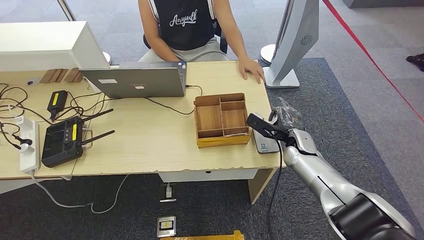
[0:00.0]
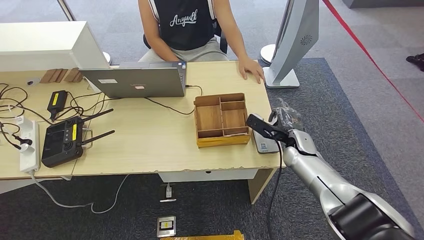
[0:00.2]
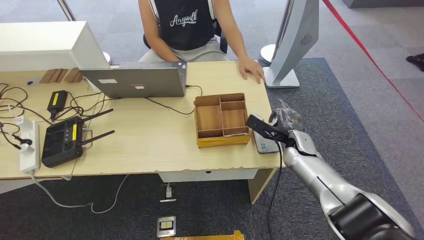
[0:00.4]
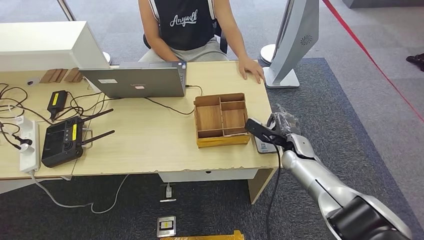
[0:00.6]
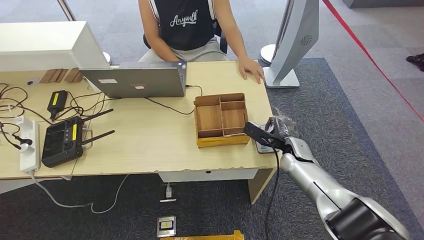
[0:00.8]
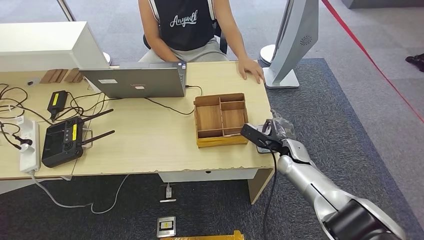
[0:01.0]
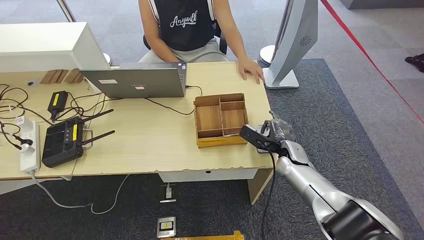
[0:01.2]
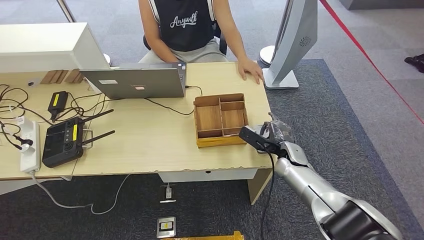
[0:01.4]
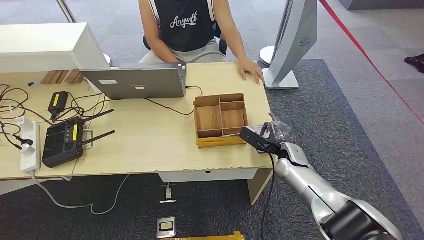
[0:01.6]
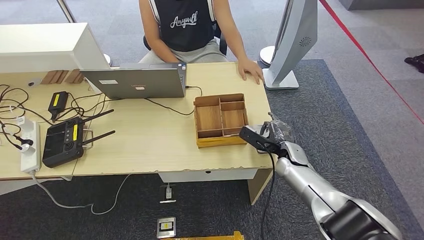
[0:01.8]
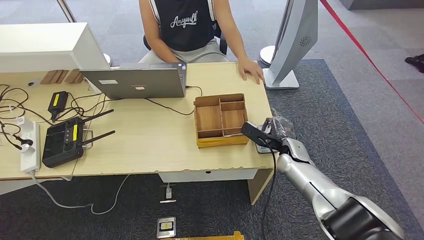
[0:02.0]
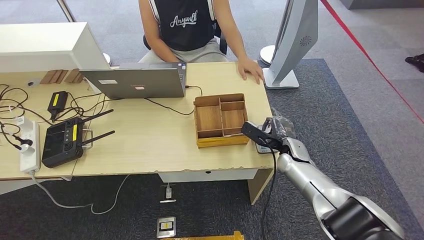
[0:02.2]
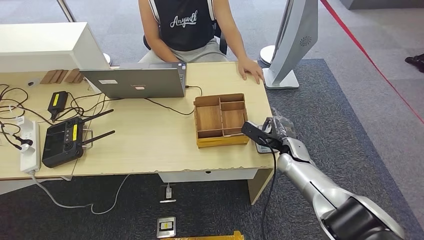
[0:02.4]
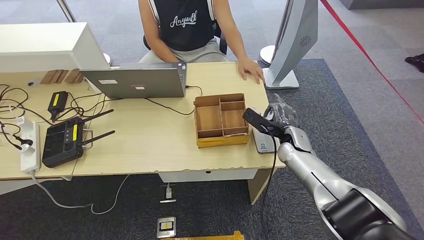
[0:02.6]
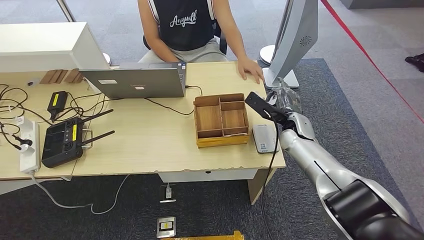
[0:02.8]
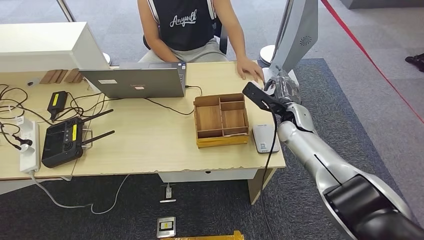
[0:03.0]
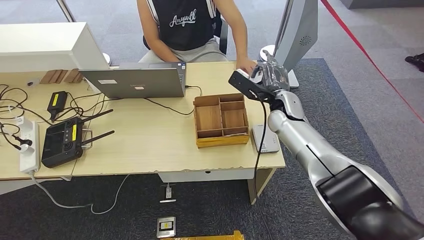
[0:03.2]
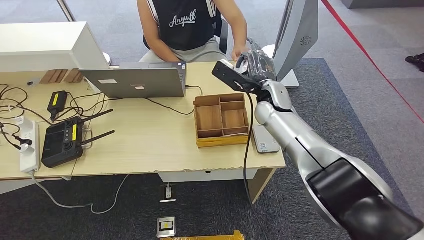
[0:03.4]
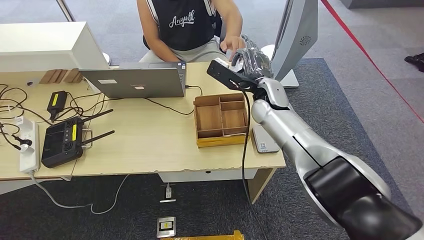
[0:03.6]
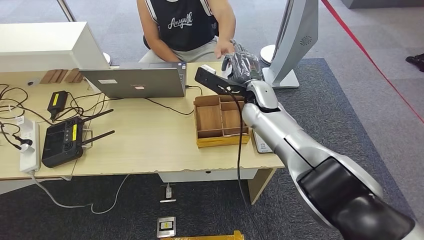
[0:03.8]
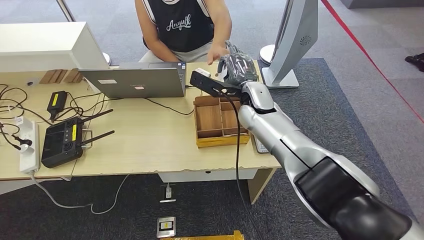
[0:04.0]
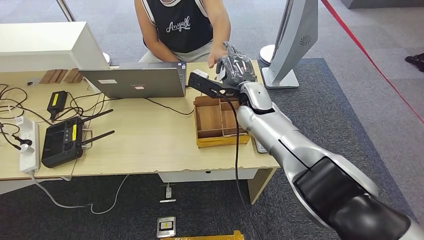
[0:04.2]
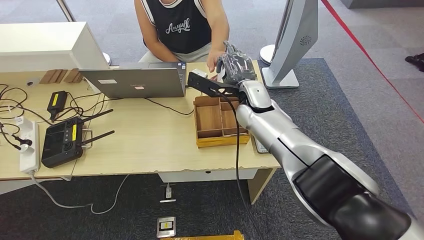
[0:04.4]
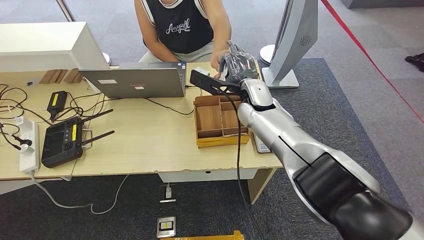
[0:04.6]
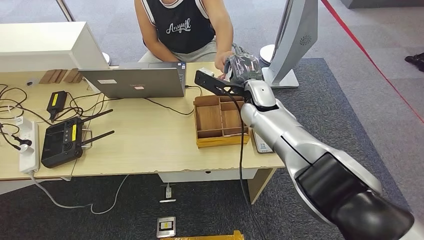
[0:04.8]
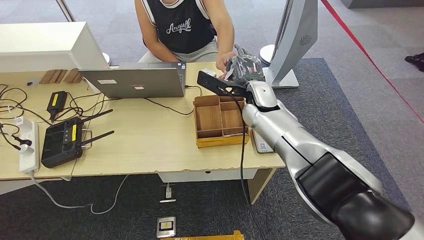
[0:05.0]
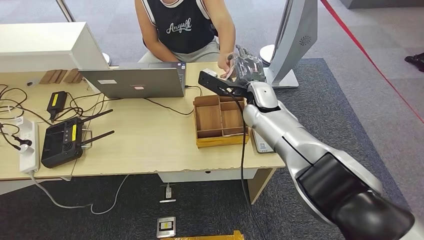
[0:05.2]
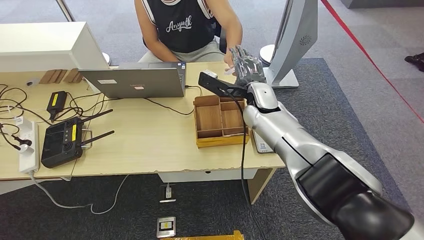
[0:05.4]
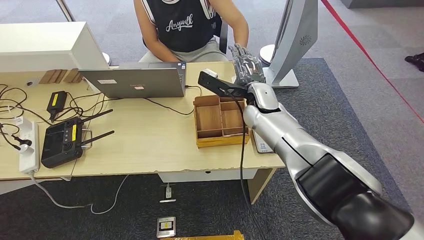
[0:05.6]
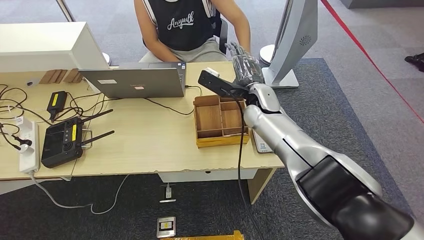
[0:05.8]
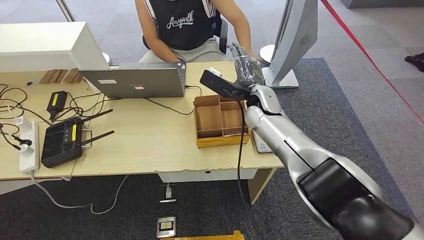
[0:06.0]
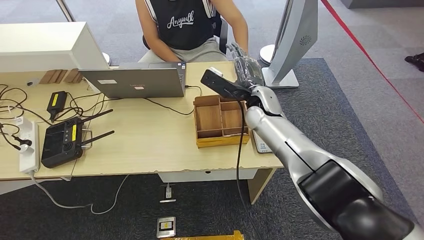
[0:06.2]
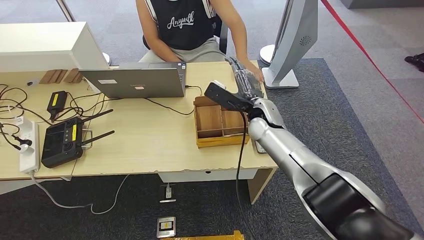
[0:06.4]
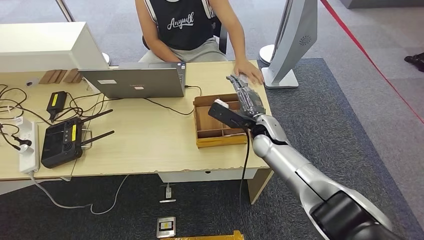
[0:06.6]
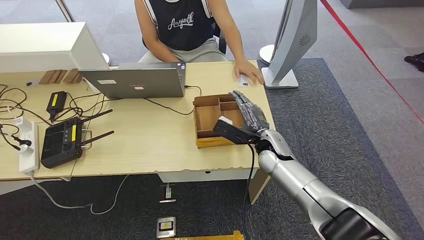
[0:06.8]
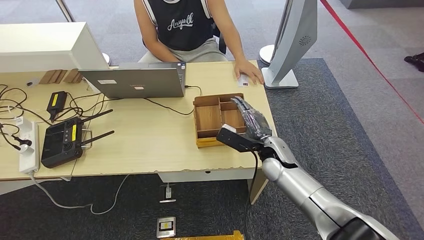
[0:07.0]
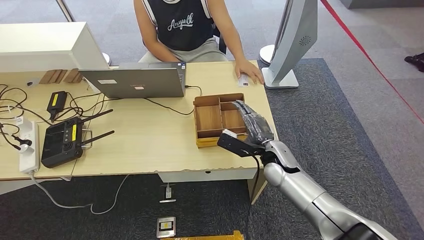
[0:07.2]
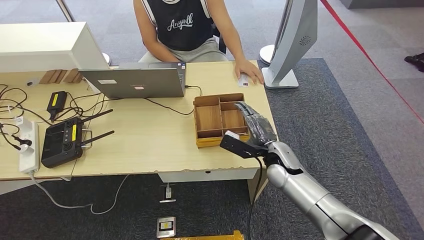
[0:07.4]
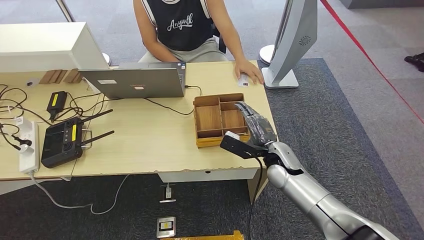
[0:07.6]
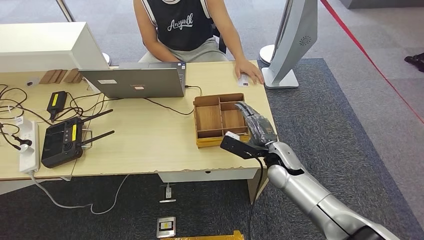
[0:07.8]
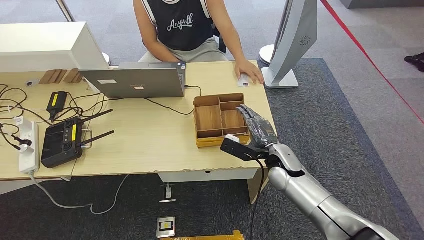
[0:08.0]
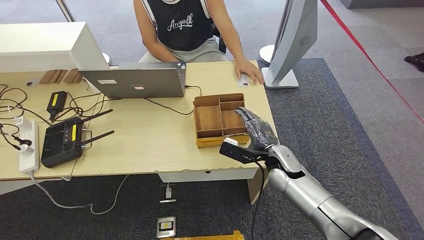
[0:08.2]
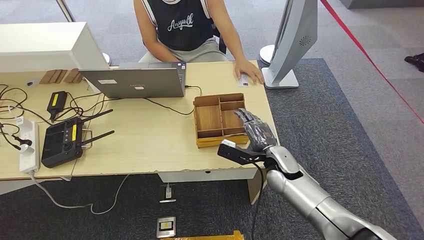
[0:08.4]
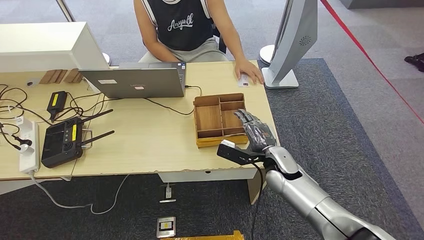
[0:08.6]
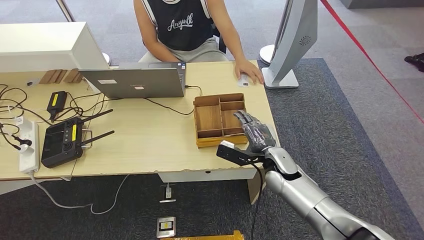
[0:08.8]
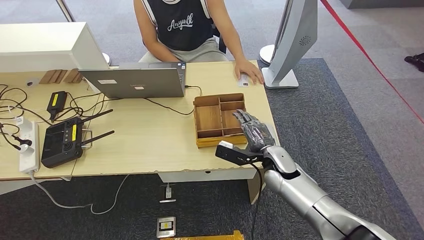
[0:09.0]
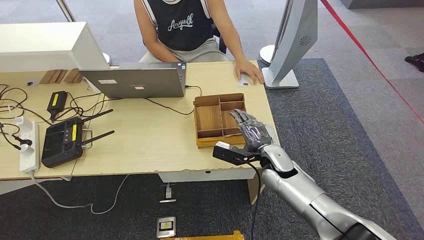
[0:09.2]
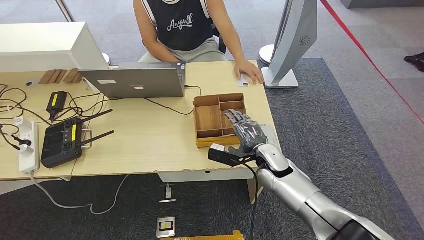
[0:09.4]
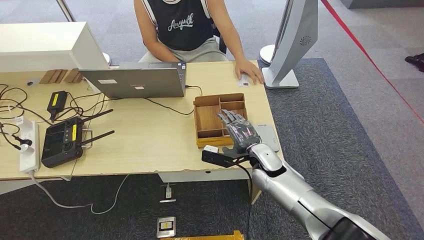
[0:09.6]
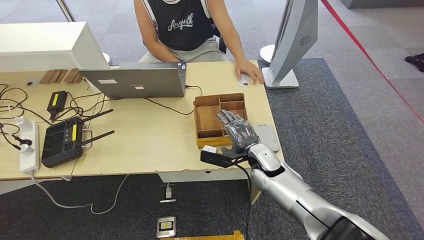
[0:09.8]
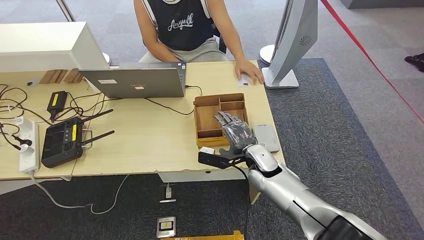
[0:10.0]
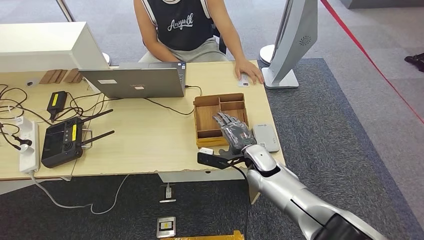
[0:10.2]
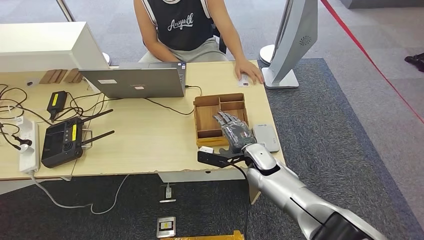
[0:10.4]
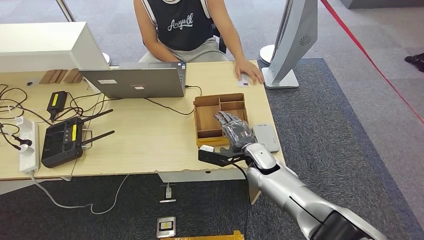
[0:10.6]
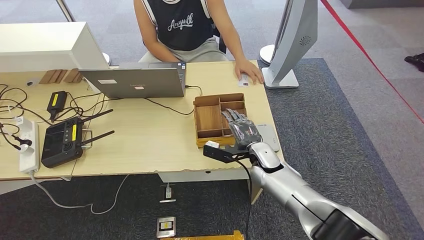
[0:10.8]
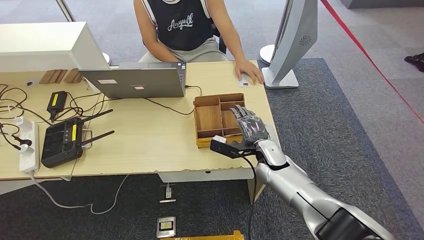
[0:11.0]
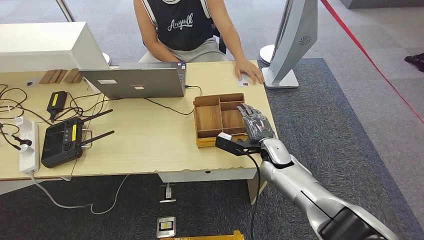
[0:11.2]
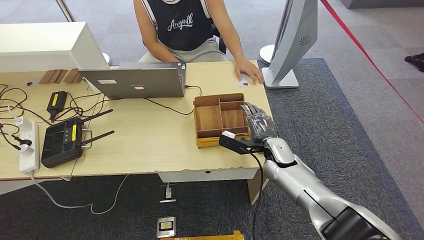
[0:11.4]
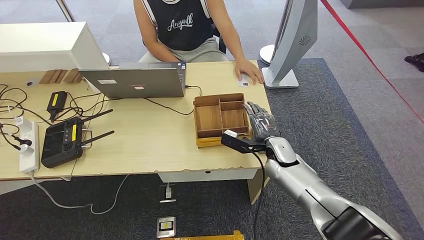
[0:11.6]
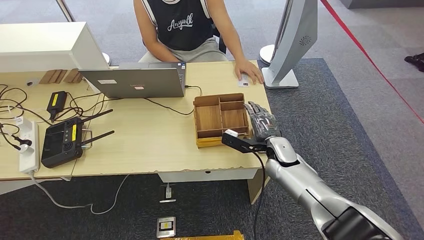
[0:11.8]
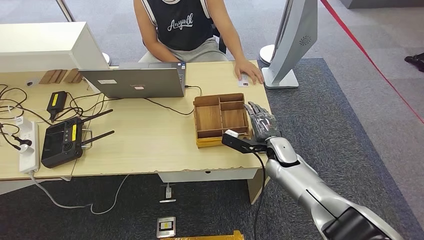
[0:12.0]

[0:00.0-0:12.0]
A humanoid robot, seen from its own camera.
Step, 0.0 to 2.8 s: Place the ID card on the card reader.
Step, 3.0 to 6.0 s: Hand the ID card to the person.
0.0 to 1.6 s: The right hand moves roughly 5 cm.
1.6 to 3.0 s: The right hand shifts roughly 15 cm upward and forward.
3.0 to 4.4 s: The right hand shifts some 15 cm to the left and upward.
4.4 to 6.0 s: The hands move only a little.
6.0 to 7.6 s: The right hand heads downward, backward and to the right, covering some 15 cm.
7.6 to 10.4 s: The hands stay close to where they were, moving slightly.
10.4 to 12.0 s: The right hand is displaced to the right by roughly 5 cm.

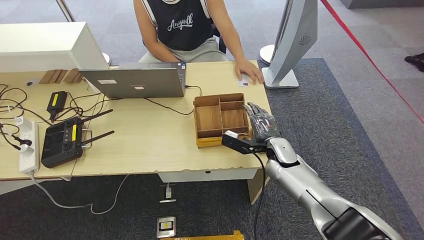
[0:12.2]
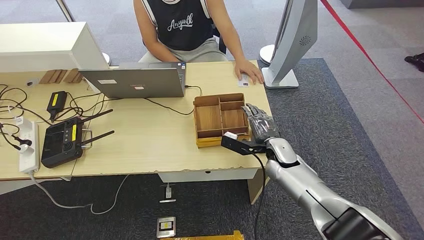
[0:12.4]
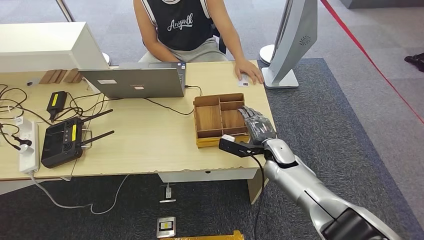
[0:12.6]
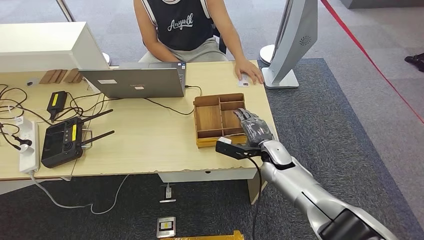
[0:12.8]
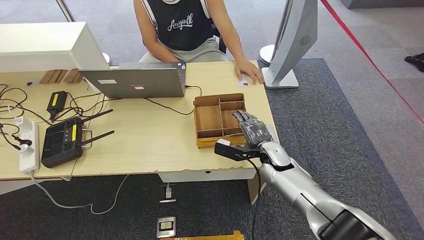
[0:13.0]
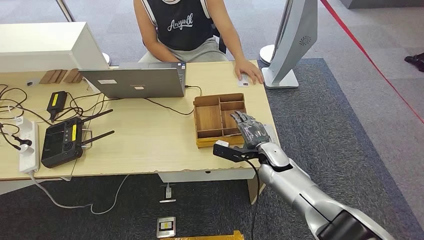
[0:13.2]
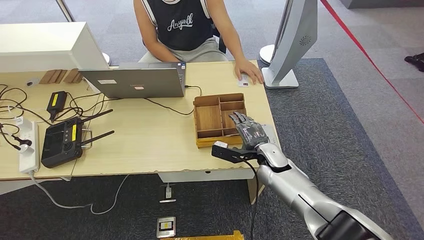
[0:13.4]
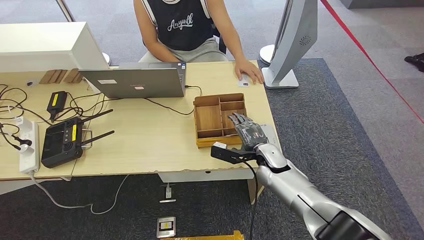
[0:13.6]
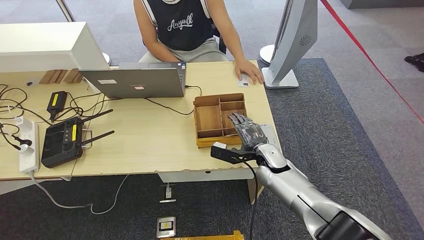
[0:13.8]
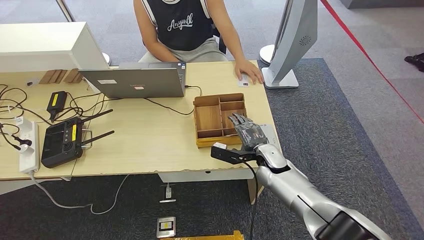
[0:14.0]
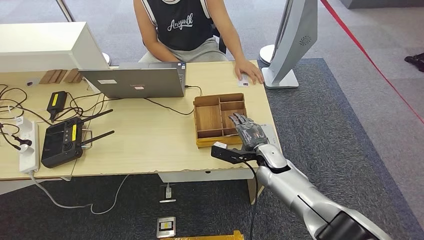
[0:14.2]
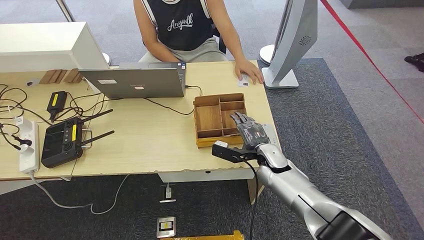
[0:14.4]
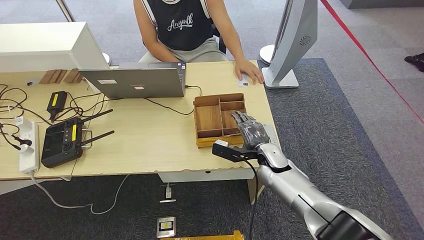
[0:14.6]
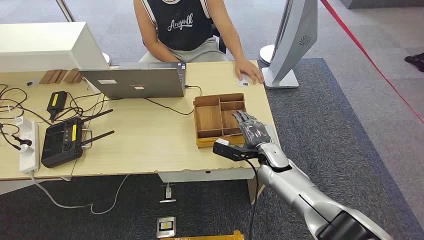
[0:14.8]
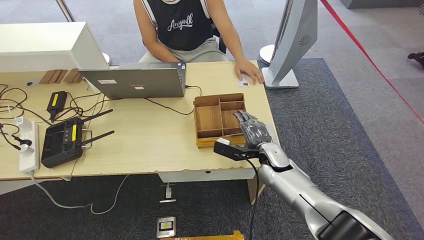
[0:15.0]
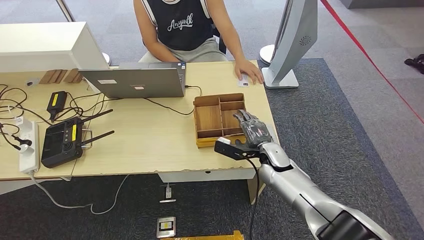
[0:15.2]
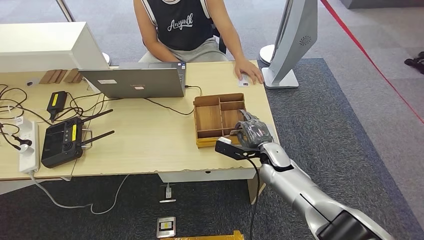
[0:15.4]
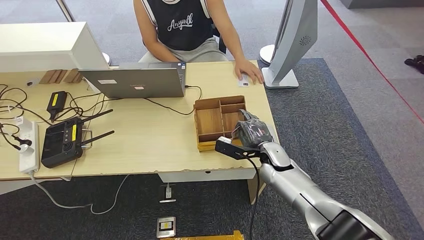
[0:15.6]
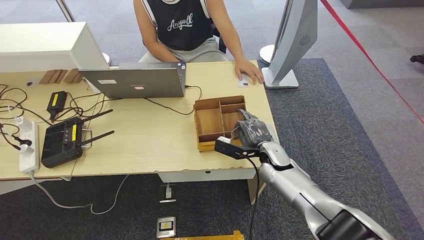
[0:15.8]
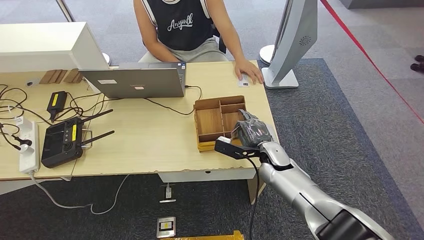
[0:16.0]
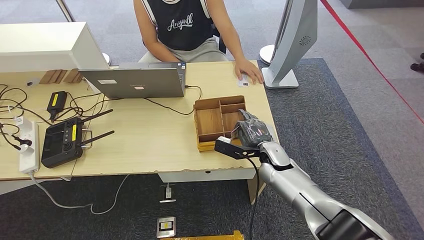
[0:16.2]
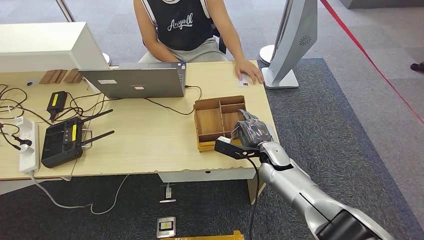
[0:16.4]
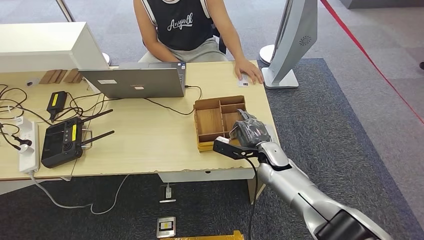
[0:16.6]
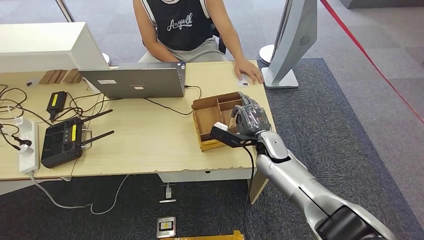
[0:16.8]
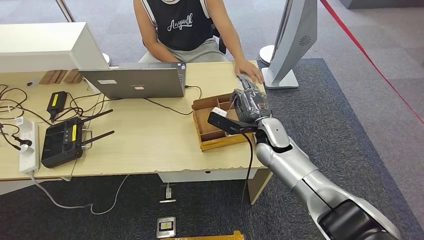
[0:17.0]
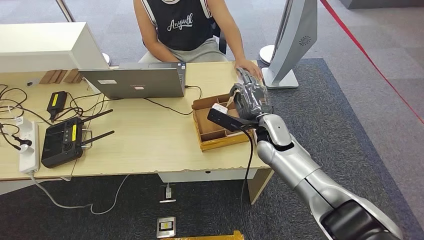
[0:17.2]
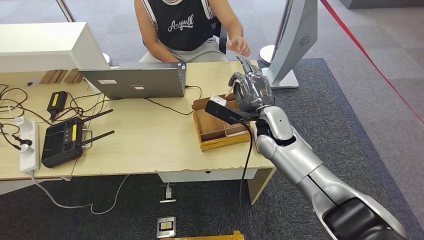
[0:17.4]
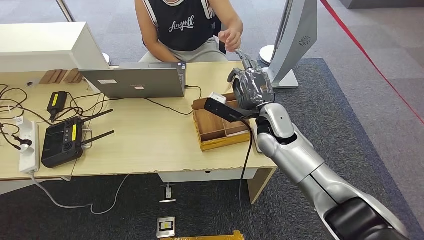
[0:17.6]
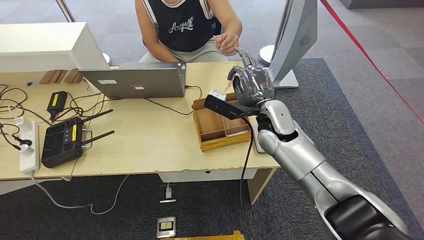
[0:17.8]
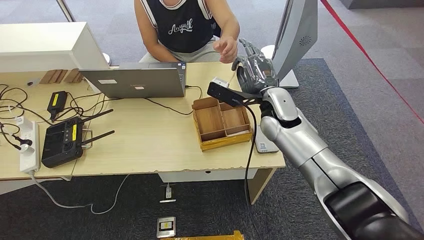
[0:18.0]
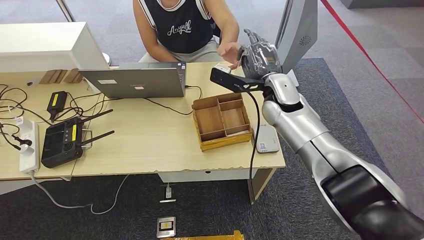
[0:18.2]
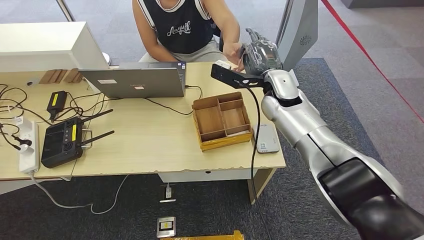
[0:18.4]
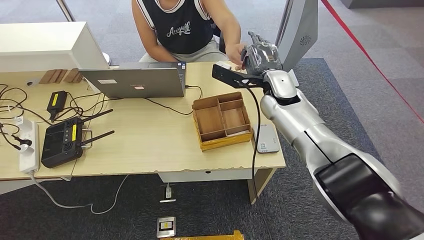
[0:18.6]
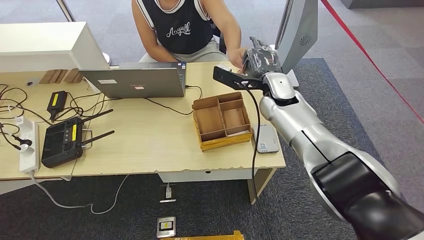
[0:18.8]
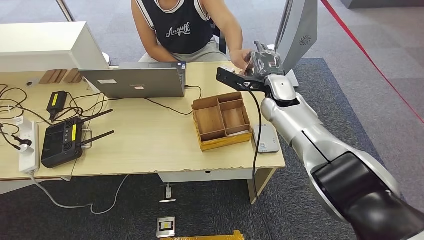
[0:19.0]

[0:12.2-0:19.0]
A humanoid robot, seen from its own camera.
Step, 12.2 to 17.0 s: Pick up the room key from the key card box.
12.2 to 13.6 s: The hands move only a little.
13.6 to 16.2 s: Neither hand changes place.
16.2 to 17.6 s: The right hand travels upward by some 15 cm.
17.6 to 19.0 s: The right hand goes about 5 cm forward.
